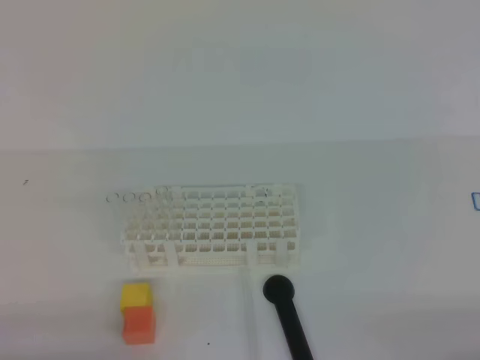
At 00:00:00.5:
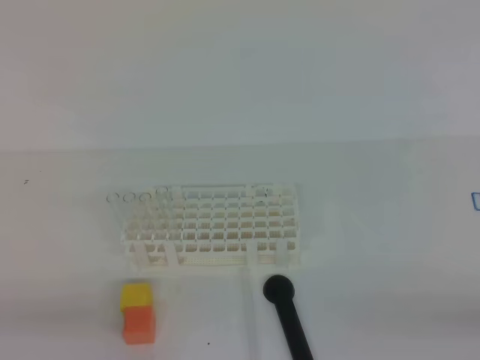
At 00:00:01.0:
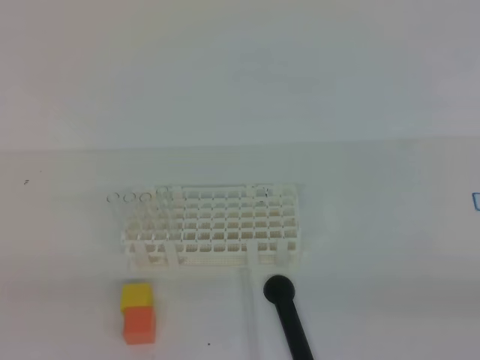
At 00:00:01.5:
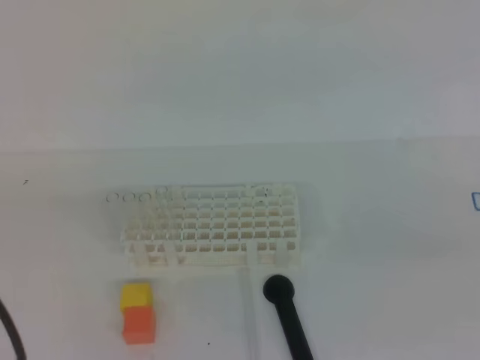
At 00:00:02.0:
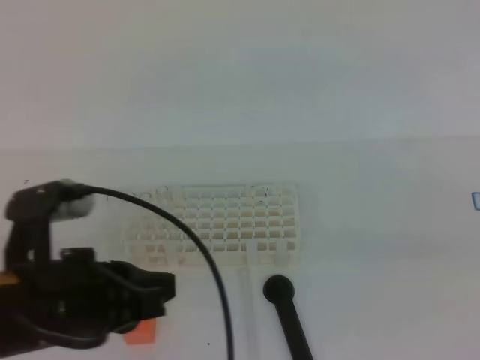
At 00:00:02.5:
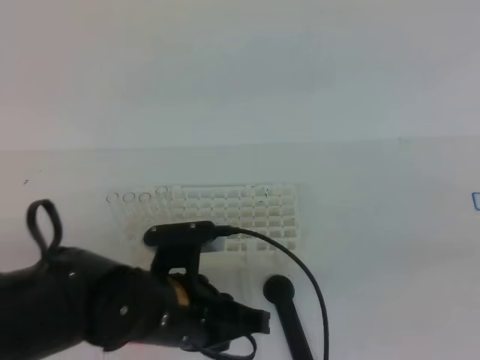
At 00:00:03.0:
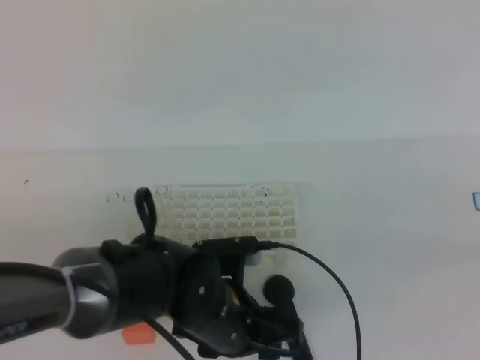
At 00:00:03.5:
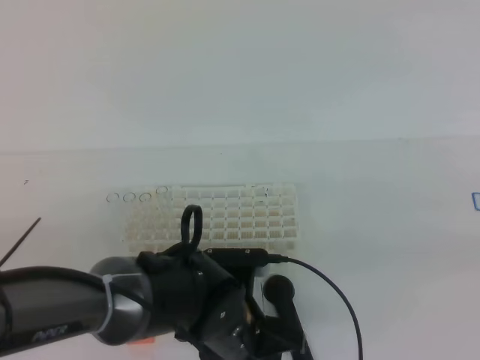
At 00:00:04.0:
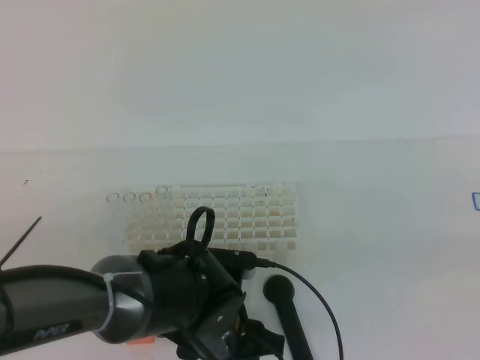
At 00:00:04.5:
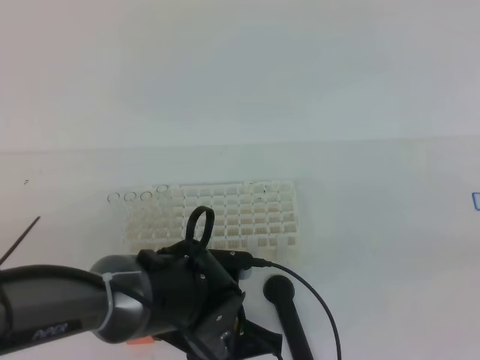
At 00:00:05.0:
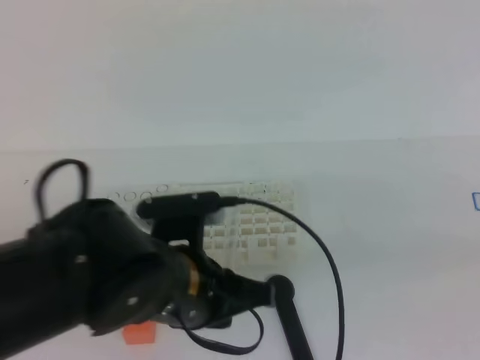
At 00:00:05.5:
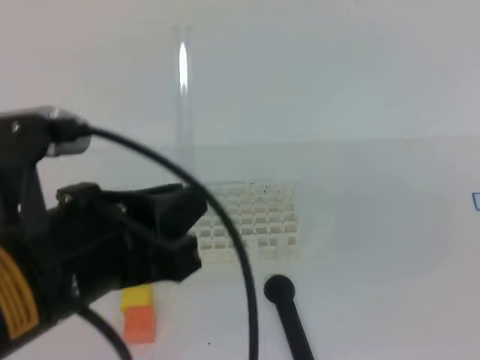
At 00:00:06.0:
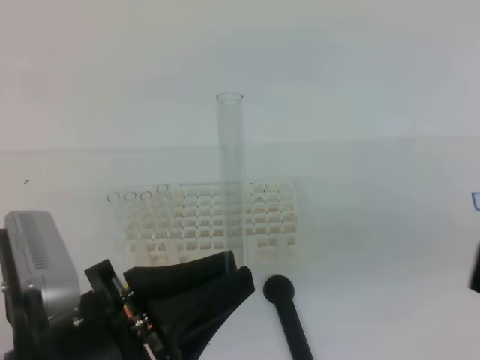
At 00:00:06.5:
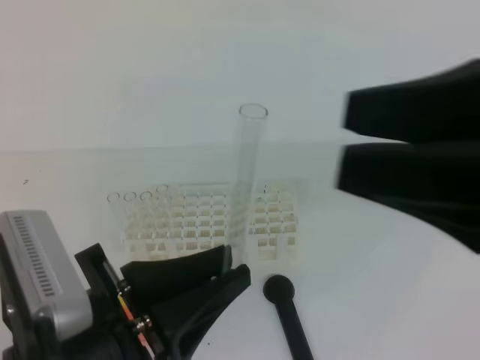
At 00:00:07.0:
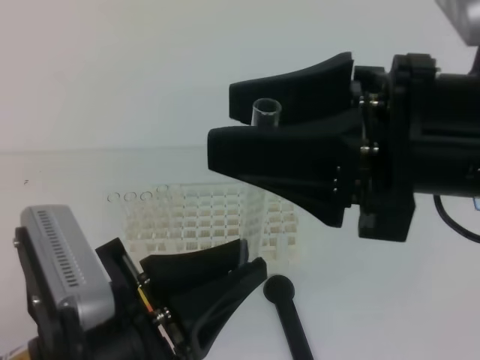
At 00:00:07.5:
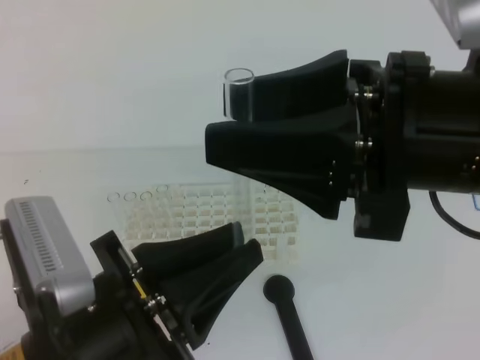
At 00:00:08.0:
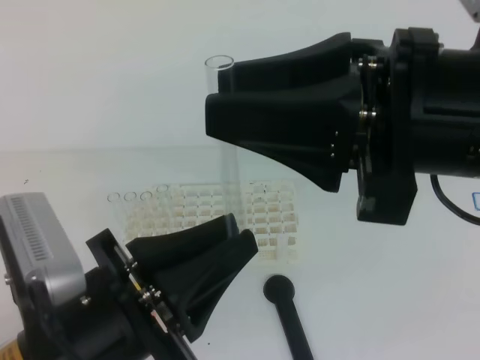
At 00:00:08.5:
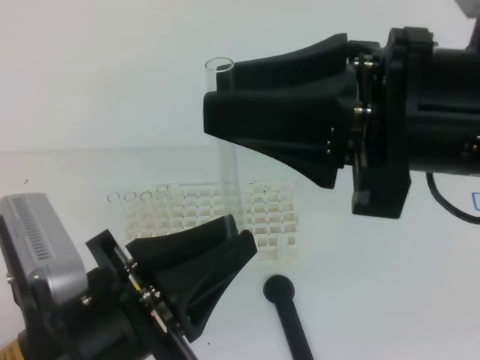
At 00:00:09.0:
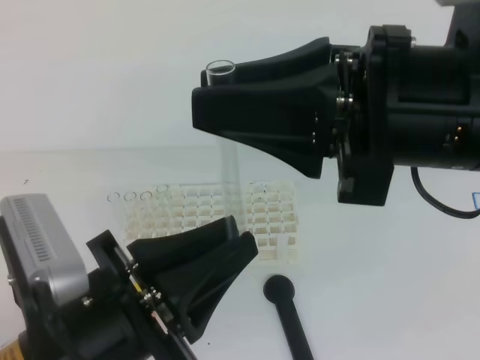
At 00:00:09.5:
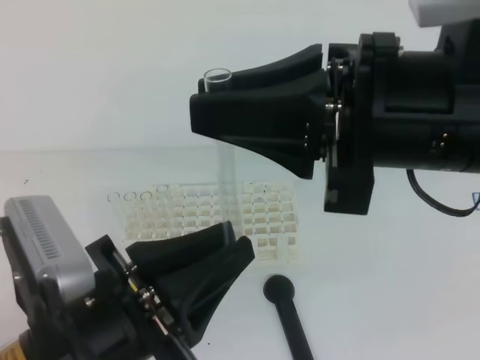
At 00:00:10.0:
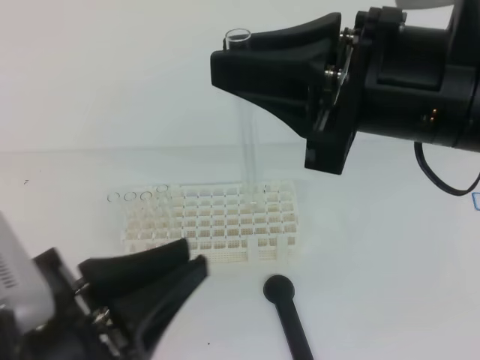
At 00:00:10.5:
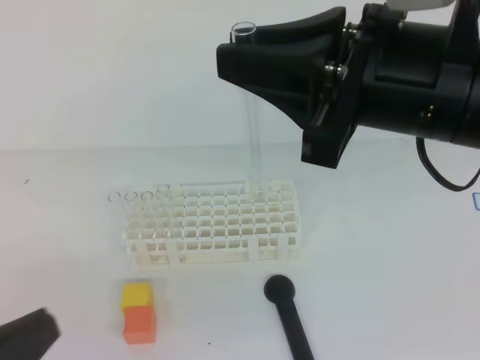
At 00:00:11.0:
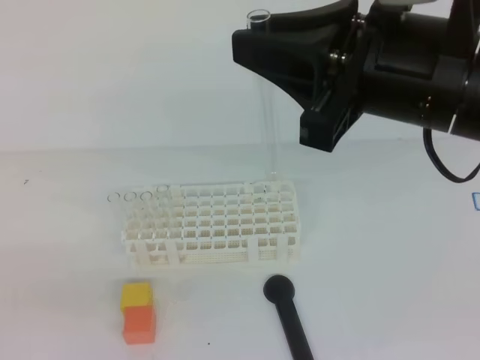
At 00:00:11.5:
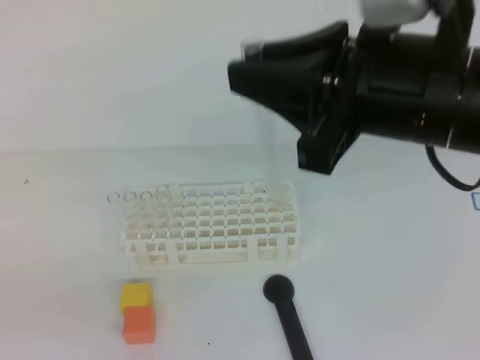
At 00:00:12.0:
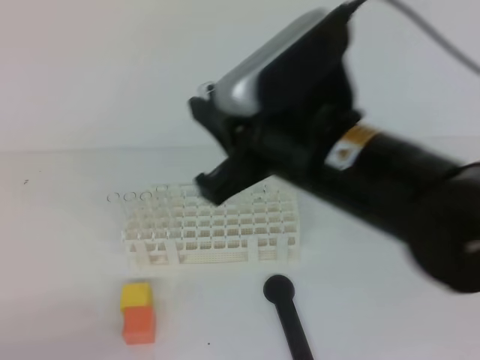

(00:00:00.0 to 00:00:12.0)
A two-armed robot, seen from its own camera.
00:00:00.0 - 00:00:02.0: The right gripper is displaced upward by about 15 cm; the left gripper goes about 15 cm forward, upward and to the right.
00:00:02.0 - 00:00:04.0: The left gripper moves to the right and downward, some 20 cm, and opens up.
00:00:04.0 - 00:00:06.0: The left gripper moves upward, backward and to the left, some 20 cm, and closes its fingers, while the right gripper shifts about 5 cm to the left.
00:00:06.0 - 00:00:08.0: The right gripper shifts about 15 cm to the left and forward, and opens up.
00:00:08.0 - 00:00:10.0: The right gripper closes up.
00:00:10.0 - 00:00:12.0: The left gripper heads to the left and downward, covering approximately 15 cm, and closes up. Meanwhile the right gripper travels downward by approximately 5 cm.

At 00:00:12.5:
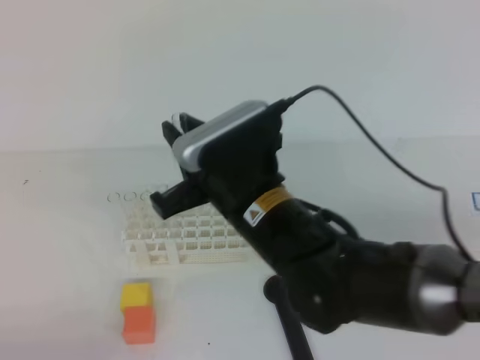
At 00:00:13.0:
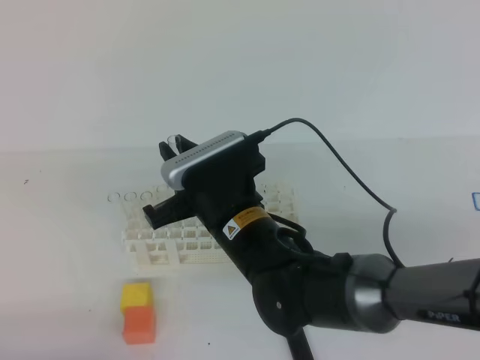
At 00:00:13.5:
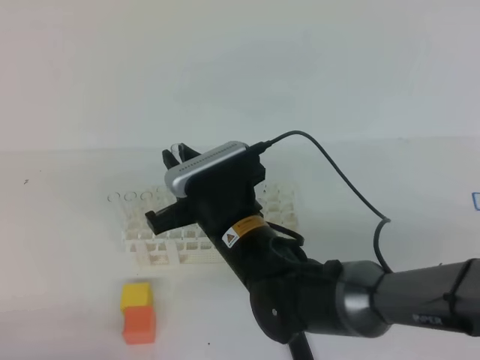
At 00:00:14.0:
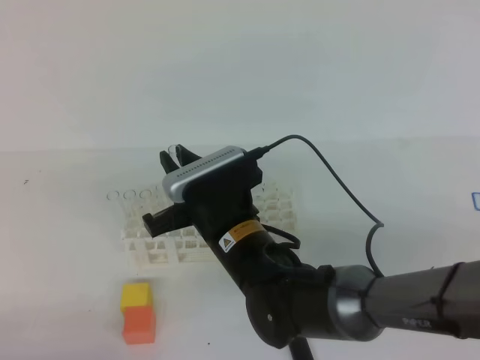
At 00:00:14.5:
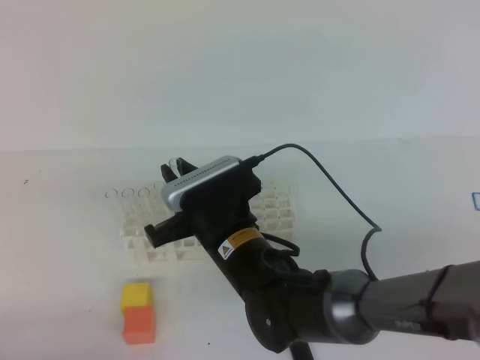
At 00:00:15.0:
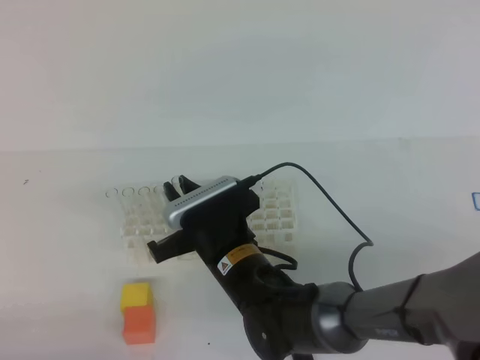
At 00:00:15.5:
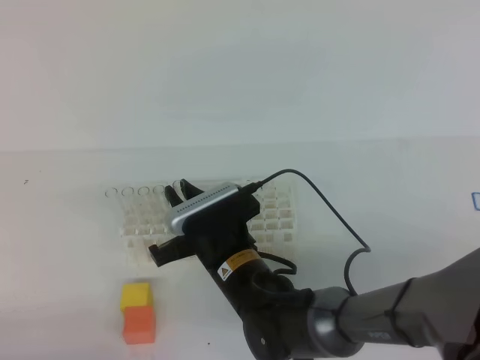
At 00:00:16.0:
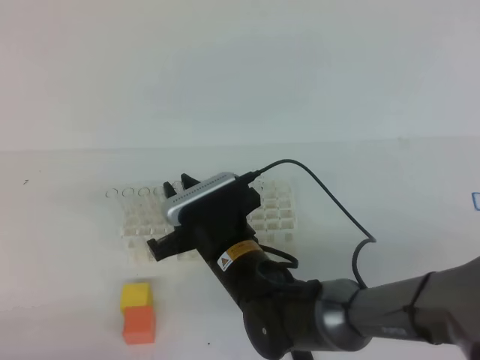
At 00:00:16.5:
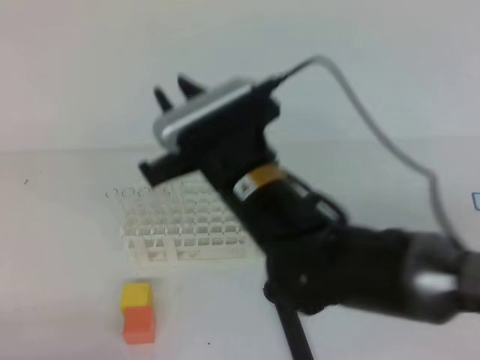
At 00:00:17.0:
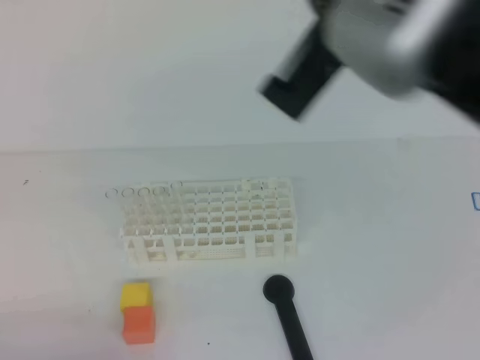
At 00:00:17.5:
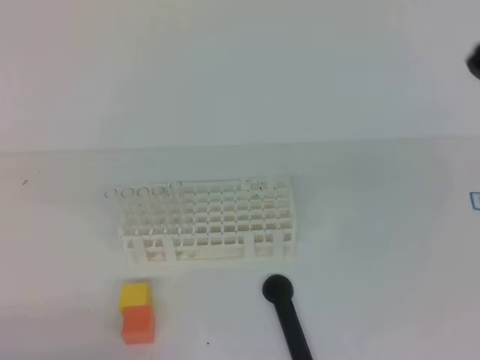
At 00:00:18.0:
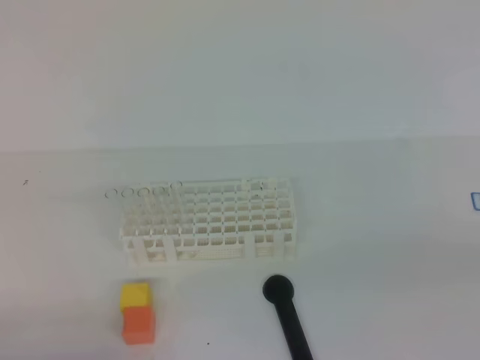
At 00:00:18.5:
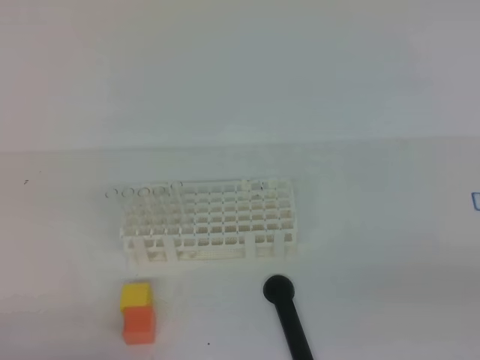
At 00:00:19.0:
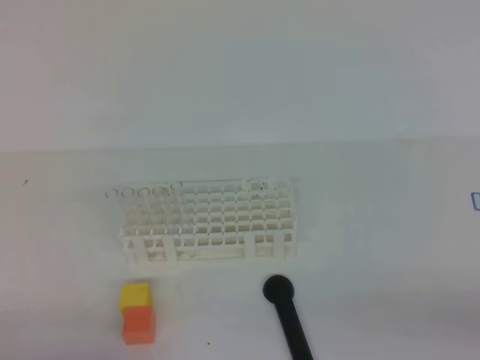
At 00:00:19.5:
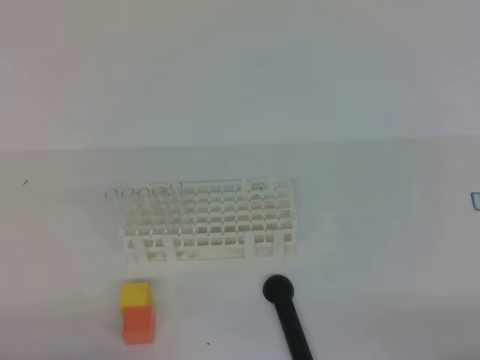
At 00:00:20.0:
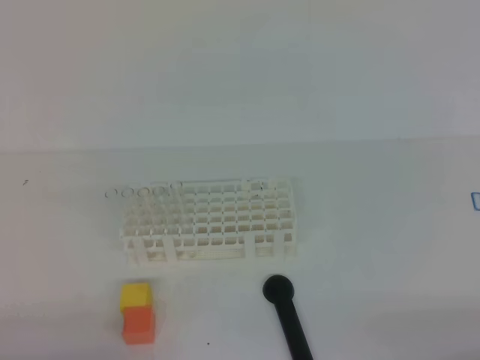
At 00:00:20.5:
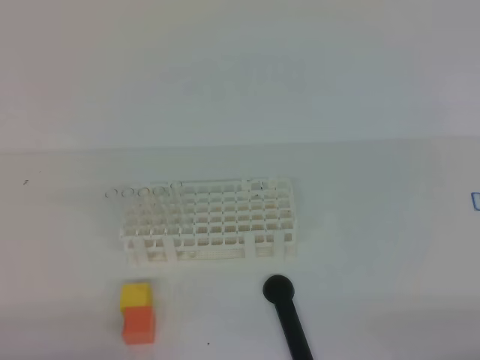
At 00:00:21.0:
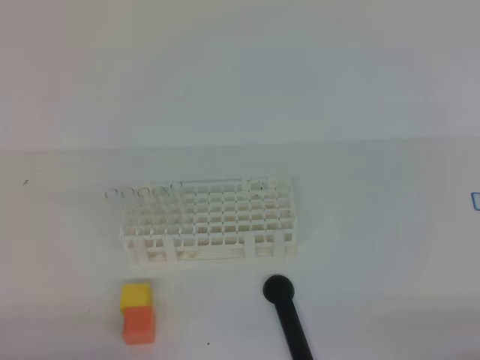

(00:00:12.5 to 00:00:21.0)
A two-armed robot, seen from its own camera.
00:00:12.5 - 00:00:14.5: The right gripper moves downward, some 10 cm.
00:00:14.5 - 00:00:16.5: The right gripper shifts roughly 10 cm upward.
00:00:16.5 - 00:00:19.0: The right gripper goes about 40 cm to the right and backward, and closes.
